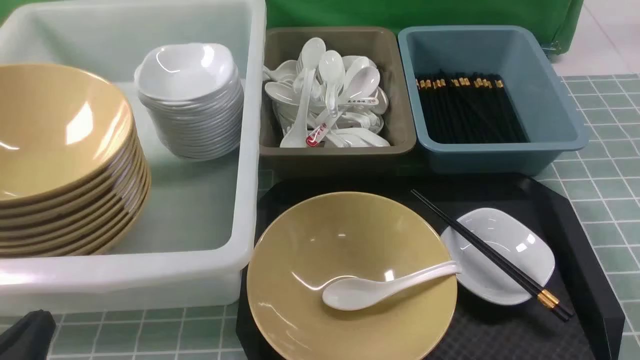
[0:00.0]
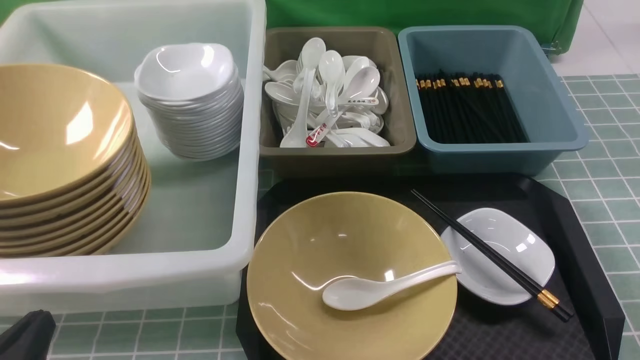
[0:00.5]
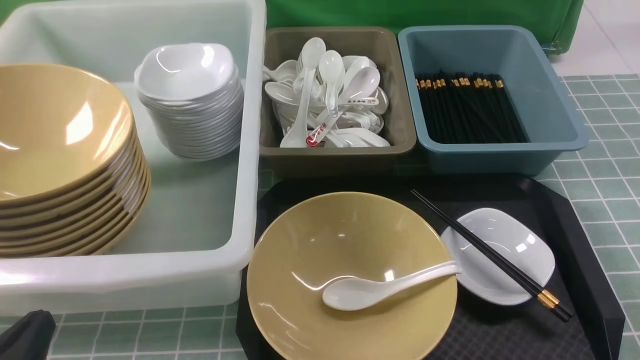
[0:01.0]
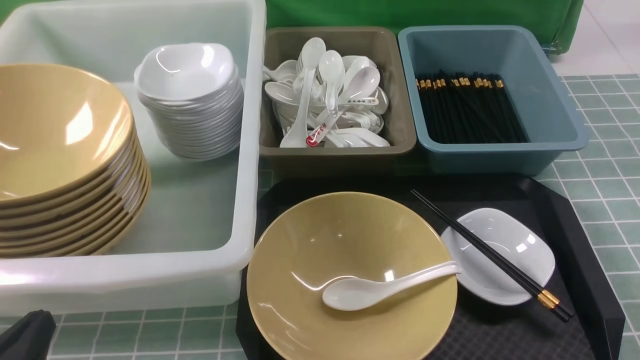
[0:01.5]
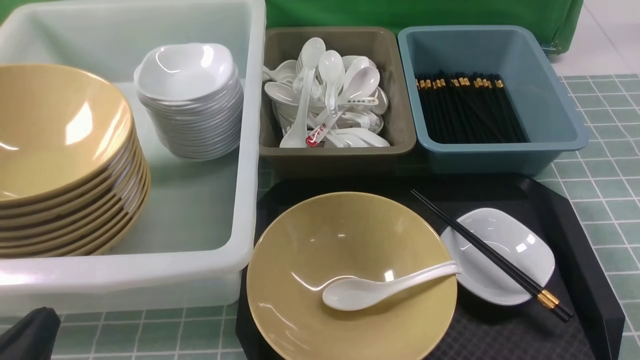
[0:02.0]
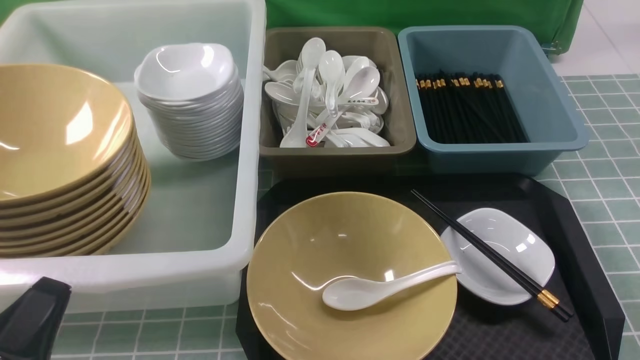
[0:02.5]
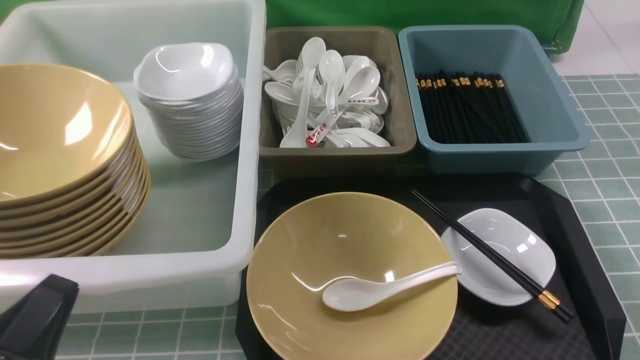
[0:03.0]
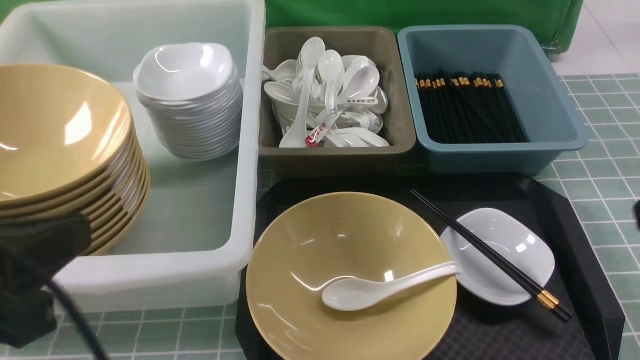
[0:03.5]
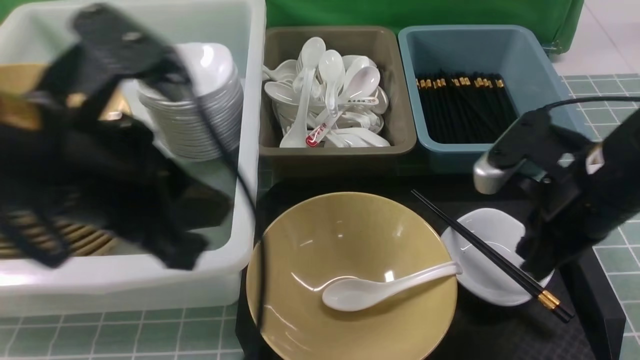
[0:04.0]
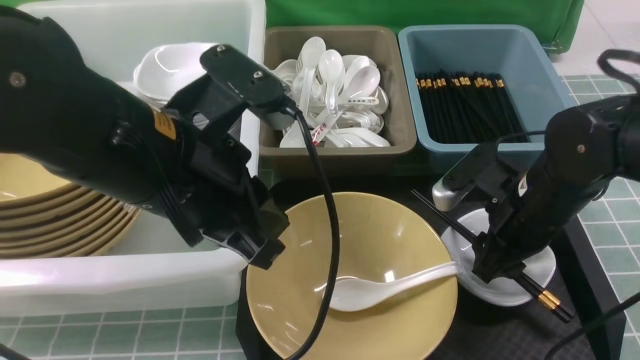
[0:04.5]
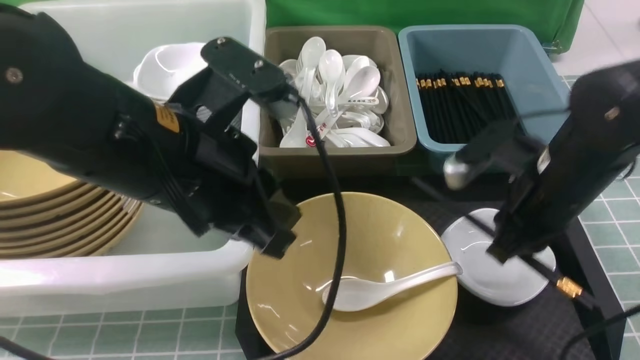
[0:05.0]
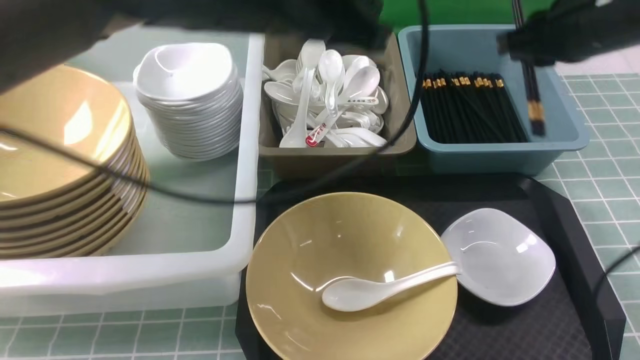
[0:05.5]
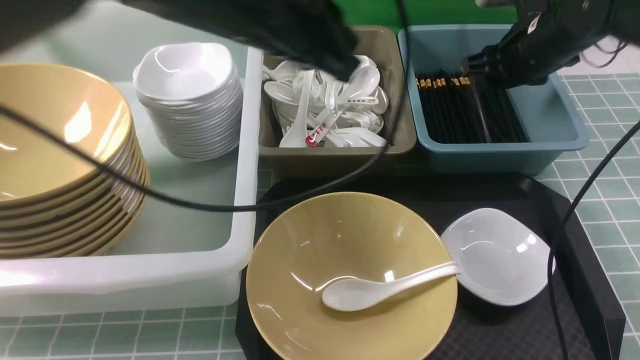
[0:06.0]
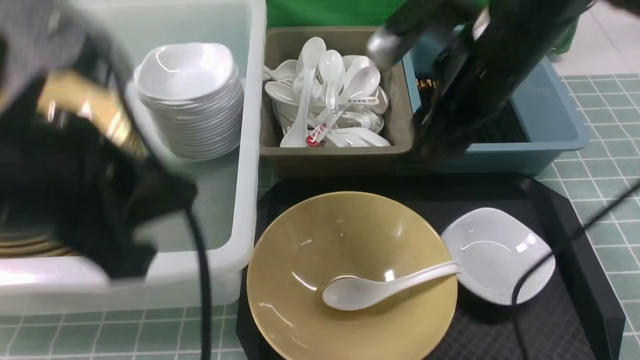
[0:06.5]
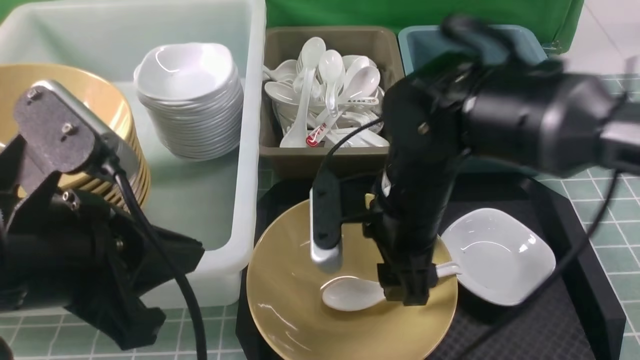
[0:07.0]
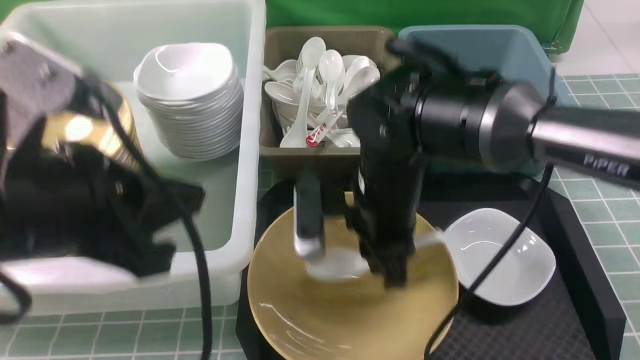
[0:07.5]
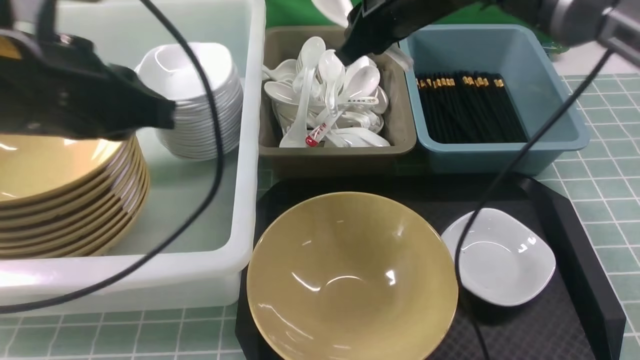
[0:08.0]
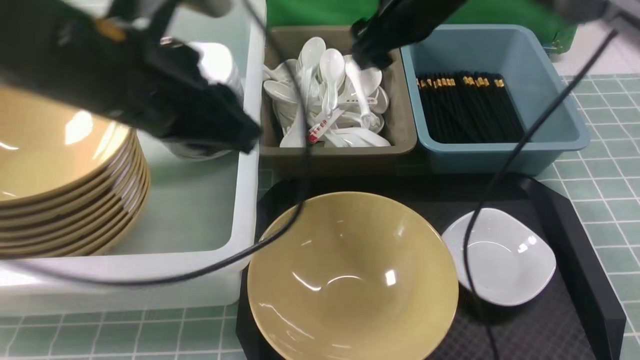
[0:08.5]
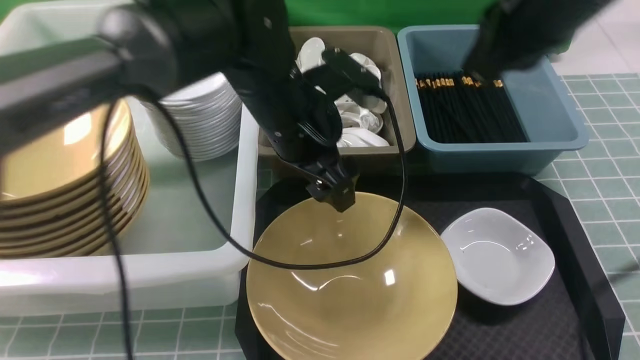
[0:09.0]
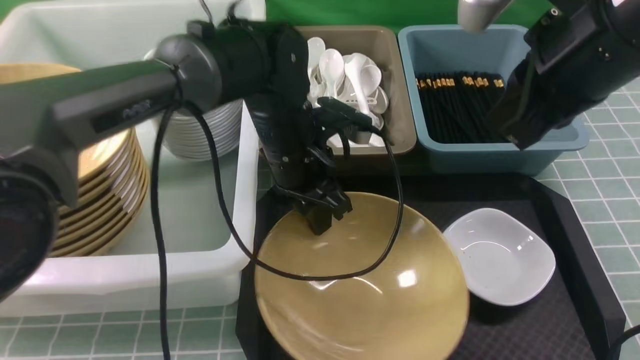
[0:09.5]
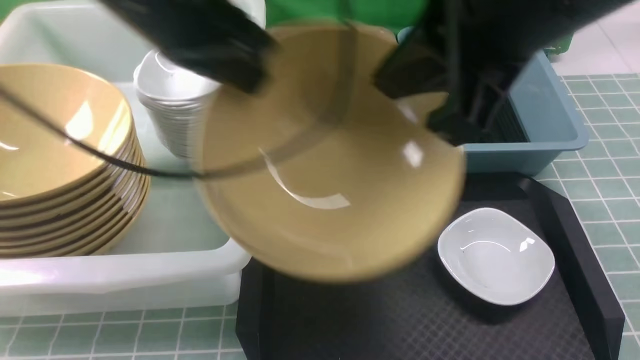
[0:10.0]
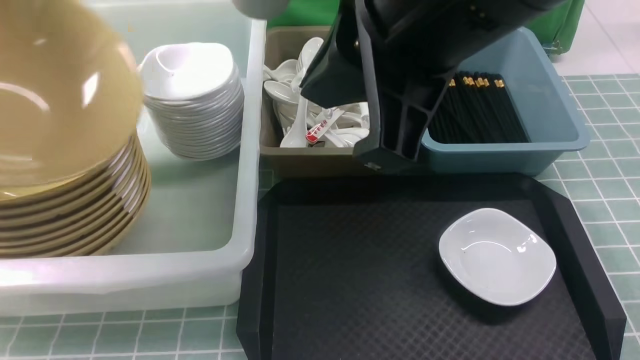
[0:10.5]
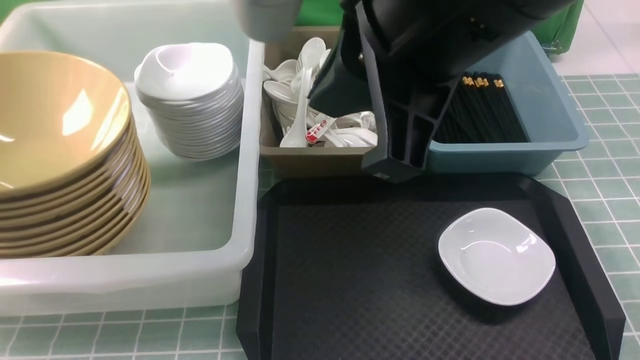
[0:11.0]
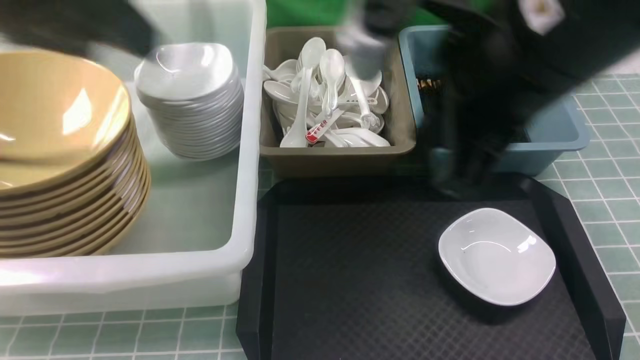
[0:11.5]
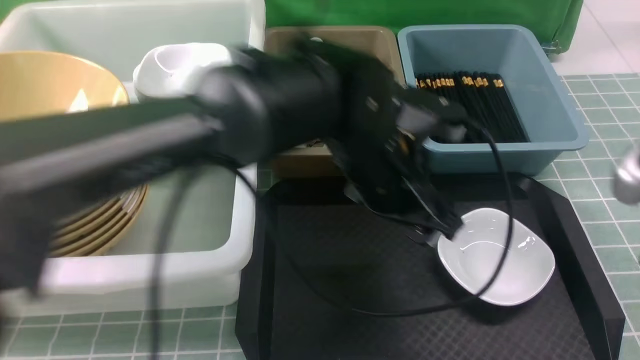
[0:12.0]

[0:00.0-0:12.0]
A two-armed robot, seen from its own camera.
Task of the whole recording: on blue table put chopsticks spoon bowls plates into blue grey white boxes.
Step, 0:00.0 to 0:05.0: use the right arm to grab the chopsticks.
Step, 0:05.5 to 0:06.0: use the right arm to put the chopsticks into the small storage box on the right.
Step, 0:06.5 to 0:07.5: use the right arm to grab the soup spoon in the middle.
Step, 0:08.0 to 0:08.5: use the right arm to put the soup spoon into the small storage box in the middle.
Step, 0:09.0 to 0:09.5: use the left arm to grab the yellow noodle bowl on the left.
Step, 0:10.0 to 0:11.0: use the left arm to put the noodle bowl into the large storage box on the left.
0:02.0 to 0:04.0: The right gripper travels forward, to the left and upward by about 25 cm. Meanwhile the left gripper travels upward, forward and to the right by about 25 cm.
0:04.0 to 0:06.0: The right gripper moves forward, approximately 20 cm, and opens its fingers, while the left gripper travels forward and to the right by some 15 cm.
0:06.0 to 0:08.0: The left gripper heads to the left and backward, covering about 10 cm. The right gripper heads to the left, covering about 15 cm.
0:08.0 to 0:10.0: The left gripper is displaced forward by approximately 5 cm, goes downward and returns, approximately 10 cm each way, and opens, then closes again, while the right gripper travels backward and upward by some 25 cm, and closes up.
0:10.0 to 0:12.0: The two grippers go roughly 25 cm to the right and downward. The left gripper opens up.

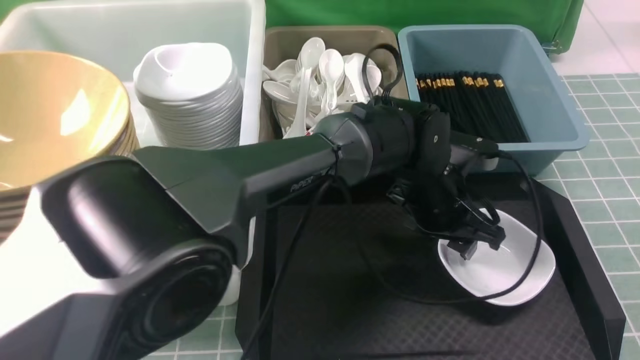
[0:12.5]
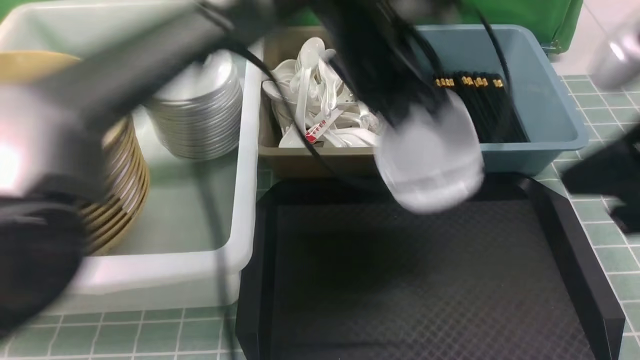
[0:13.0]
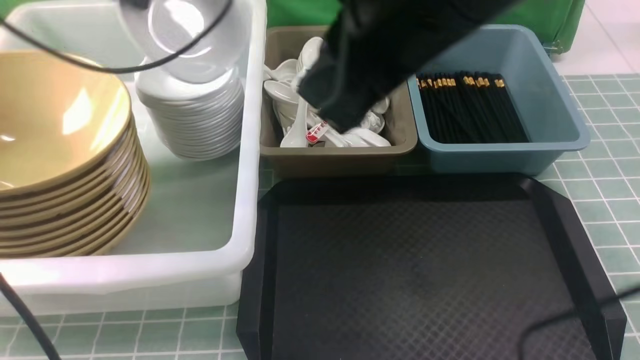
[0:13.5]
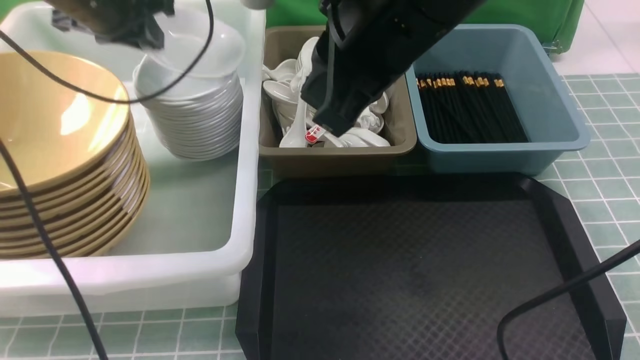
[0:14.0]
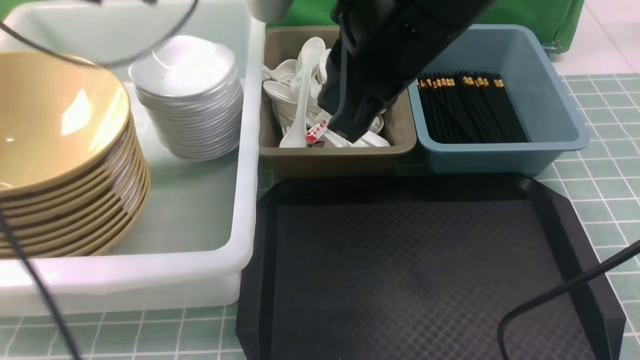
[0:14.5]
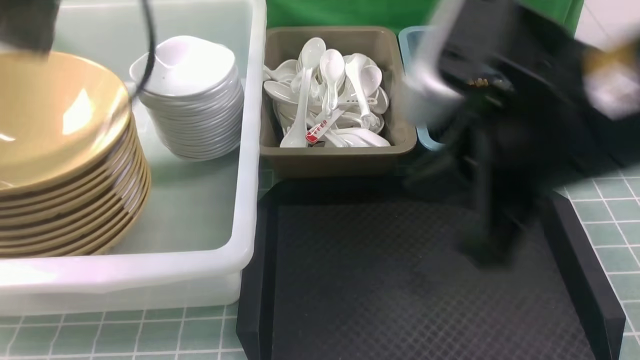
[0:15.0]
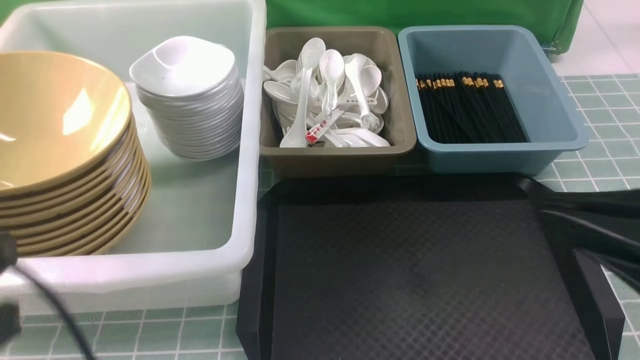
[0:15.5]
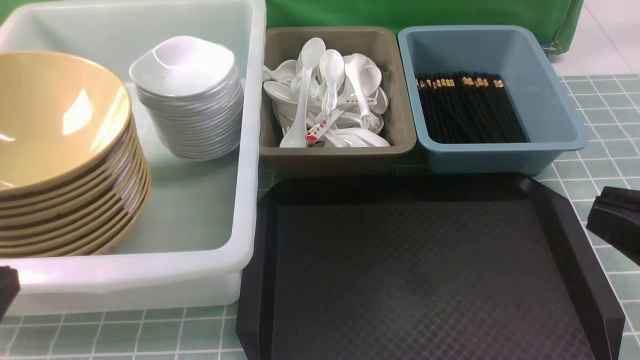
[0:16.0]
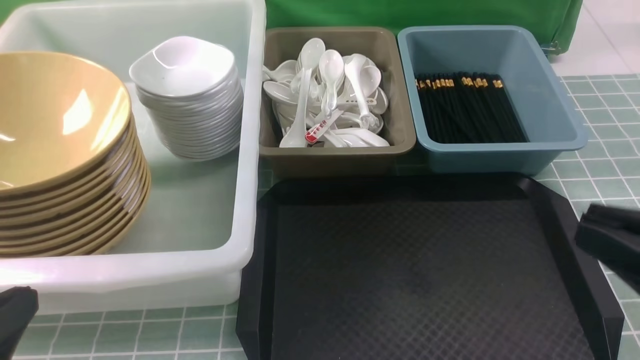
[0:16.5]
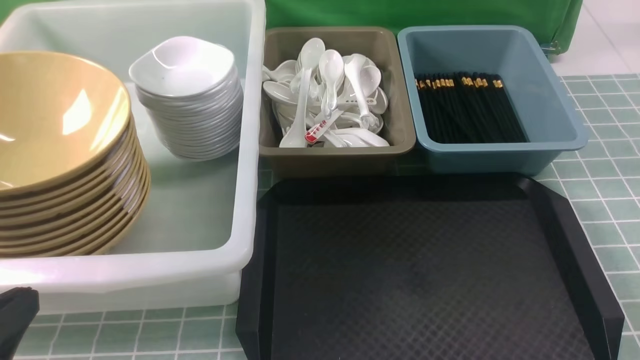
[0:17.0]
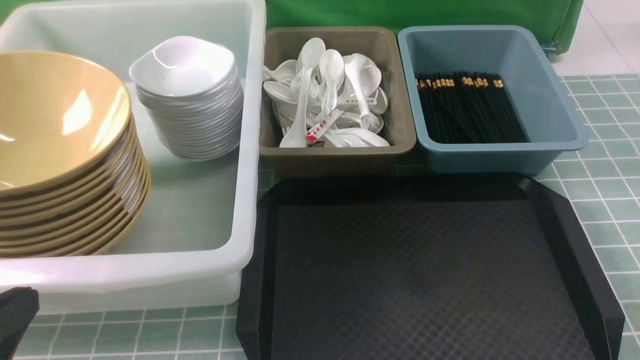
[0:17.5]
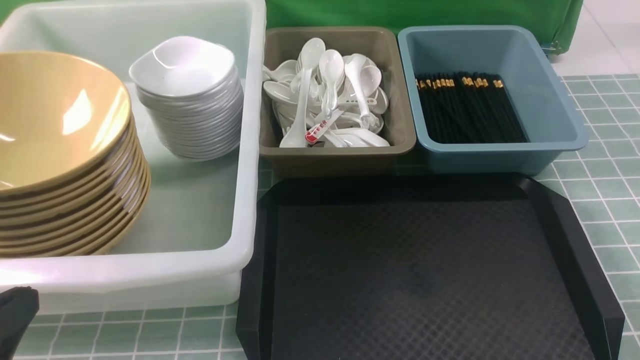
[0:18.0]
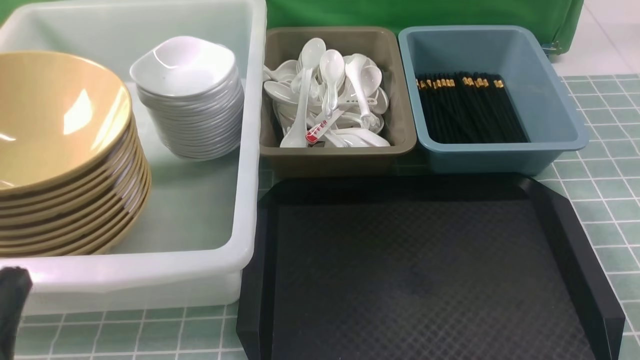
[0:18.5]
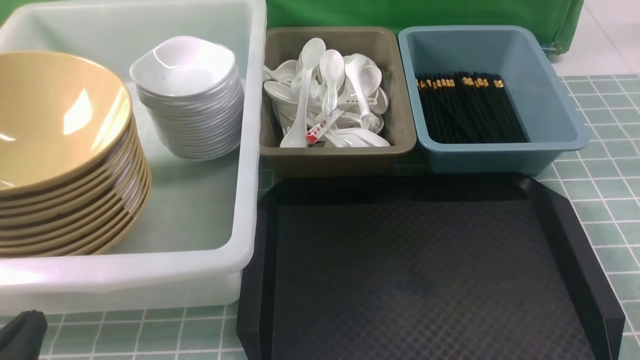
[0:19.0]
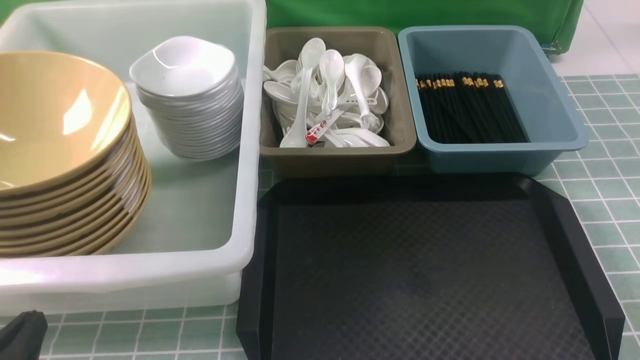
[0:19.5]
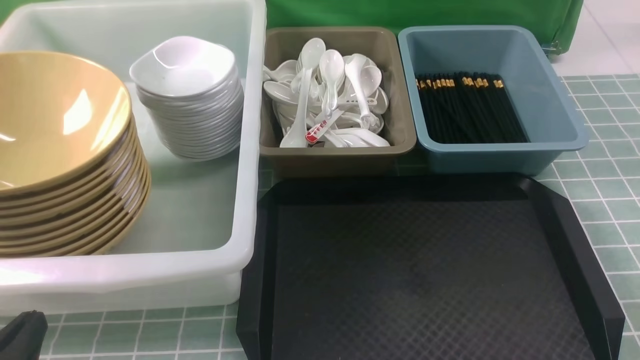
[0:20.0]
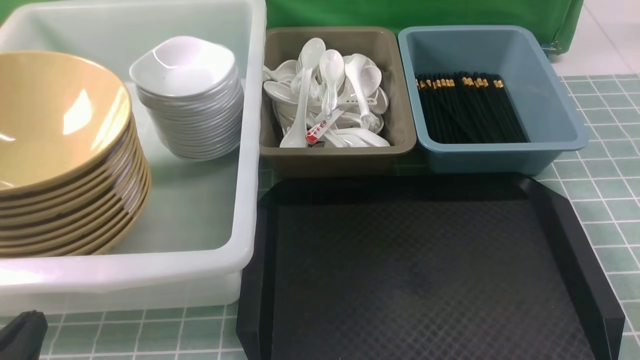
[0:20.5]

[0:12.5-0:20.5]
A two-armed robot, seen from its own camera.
Task of the whole recording: on blue table put chopsticks spoon bowls plates into blue grey white boxes.
Step, 0:13.0 to 0:14.0: use the left arm to put the plate into the large storage box on the left.
0:12.5 to 0:14.5: The left gripper moves to the left and upward, approximately 40 cm, and opens its fingers, while the right gripper heads to the left and forward, covering some 25 cm.
0:14.5 to 0:16.5: The right gripper heads backward, to the right and downward, covering some 30 cm. Meanwhile the left gripper is displaced backward and downward by approximately 40 cm, and closes up.
0:16.5 to 0:18.5: The right gripper travels downward and to the right by approximately 15 cm.
0:18.5 to 0:20.5: The grippers move only a little.
